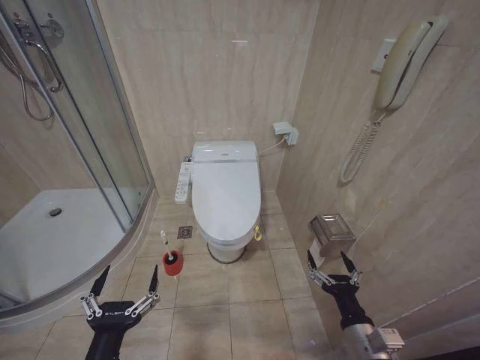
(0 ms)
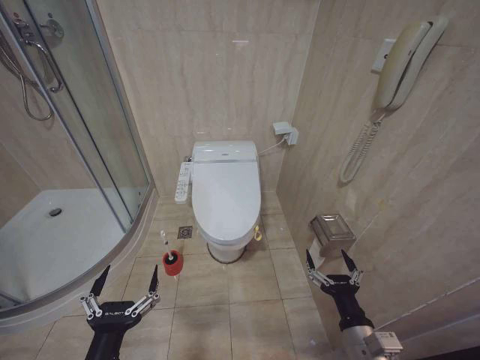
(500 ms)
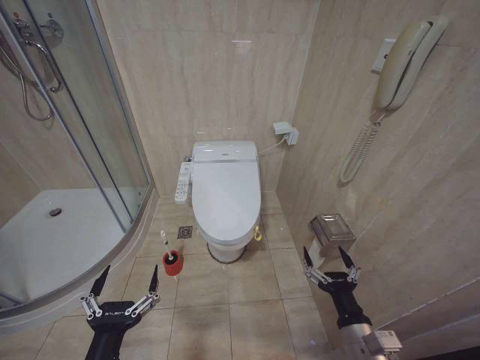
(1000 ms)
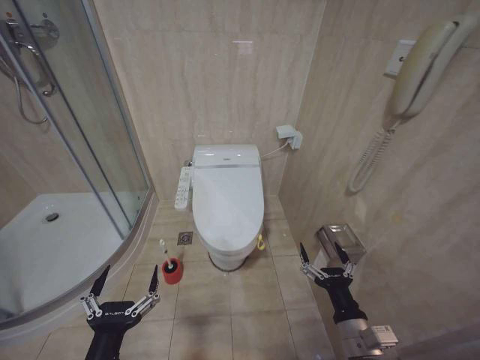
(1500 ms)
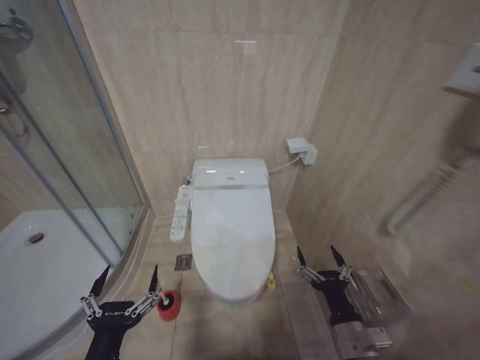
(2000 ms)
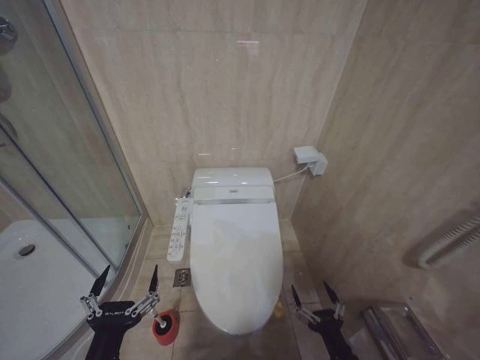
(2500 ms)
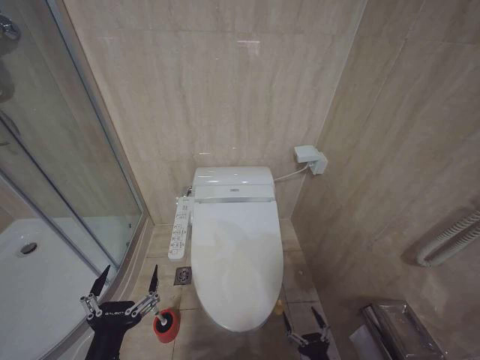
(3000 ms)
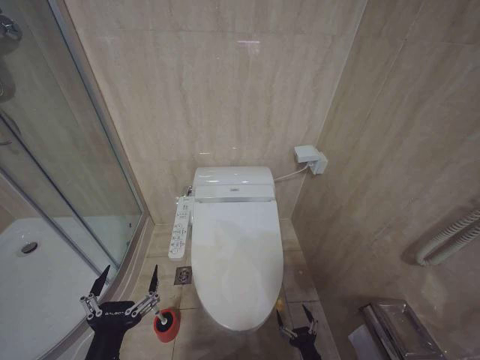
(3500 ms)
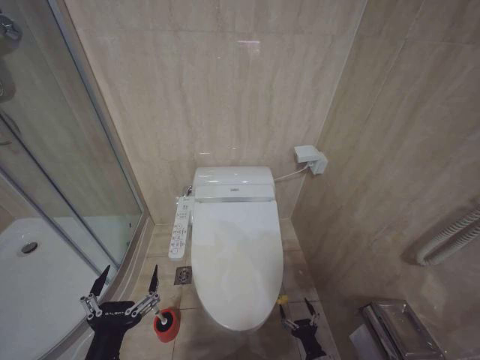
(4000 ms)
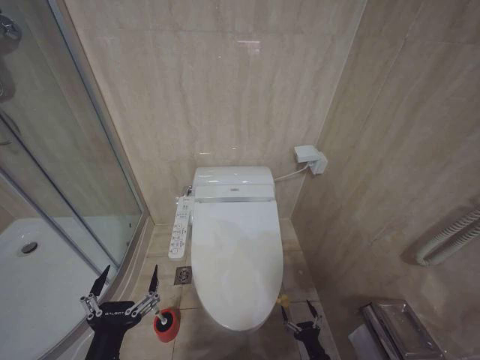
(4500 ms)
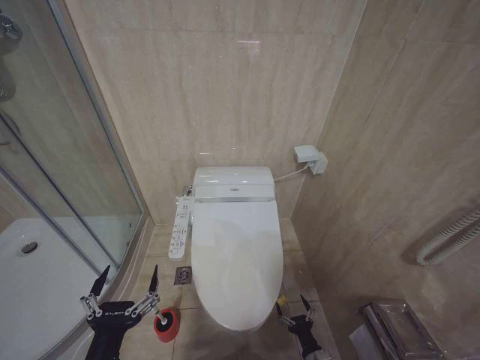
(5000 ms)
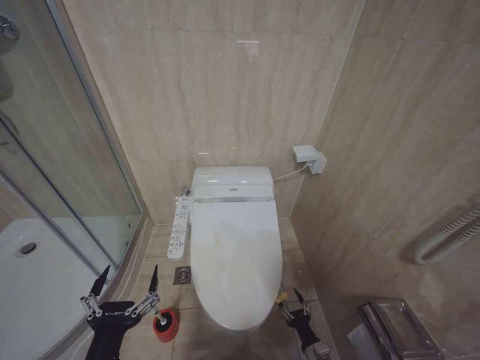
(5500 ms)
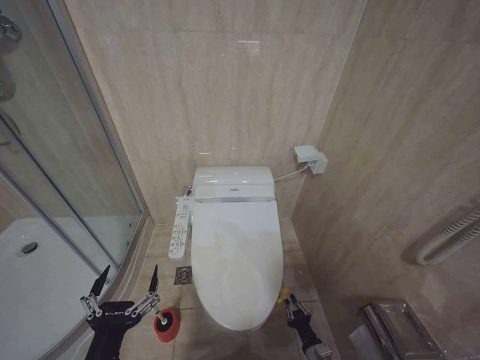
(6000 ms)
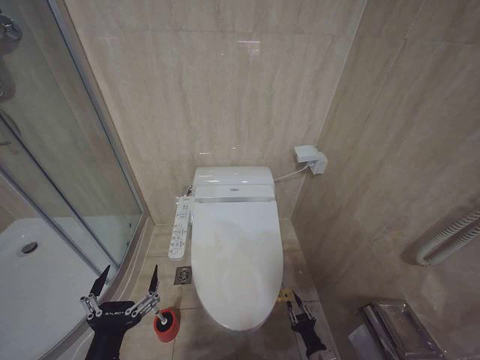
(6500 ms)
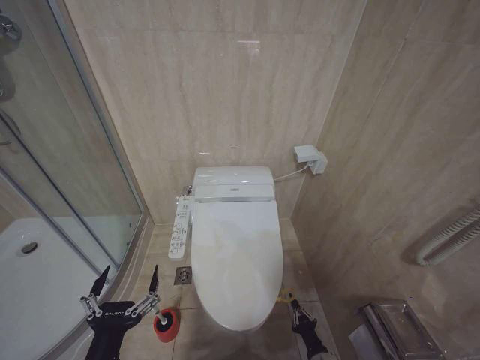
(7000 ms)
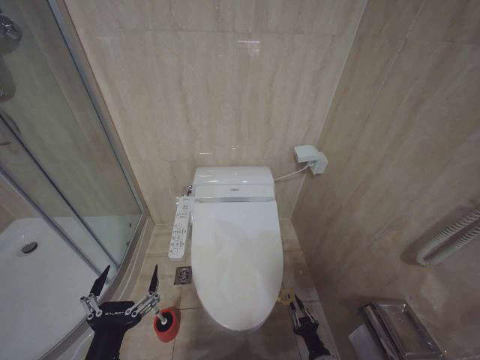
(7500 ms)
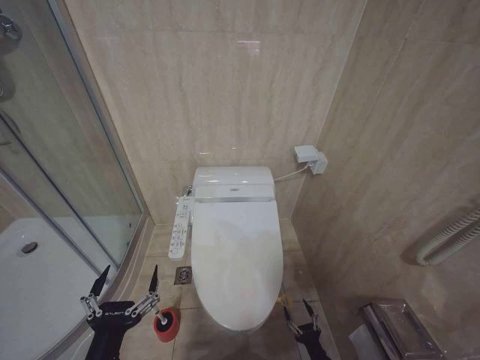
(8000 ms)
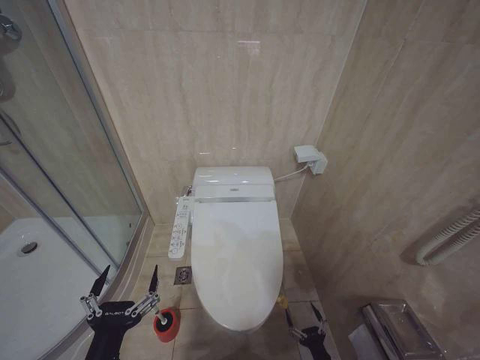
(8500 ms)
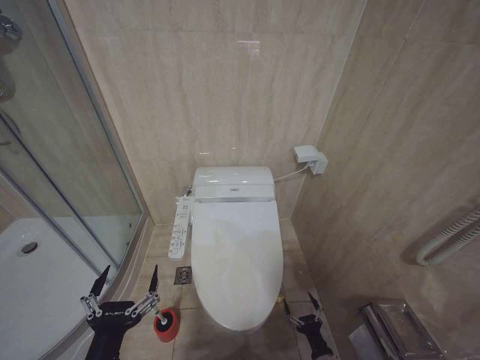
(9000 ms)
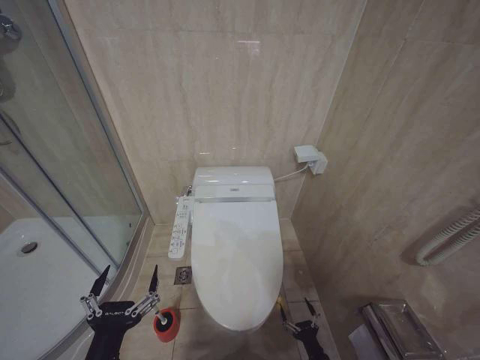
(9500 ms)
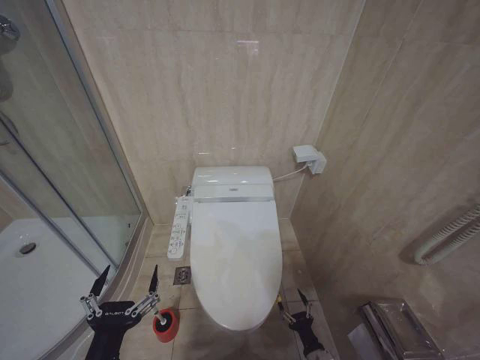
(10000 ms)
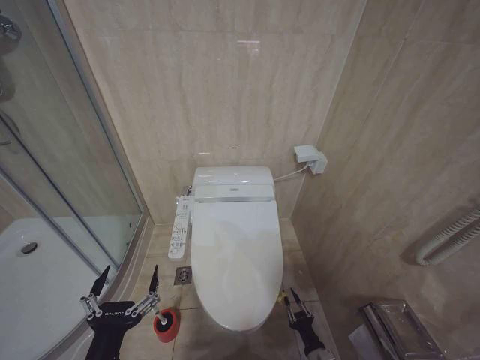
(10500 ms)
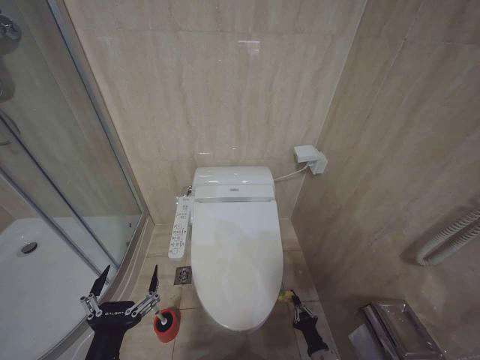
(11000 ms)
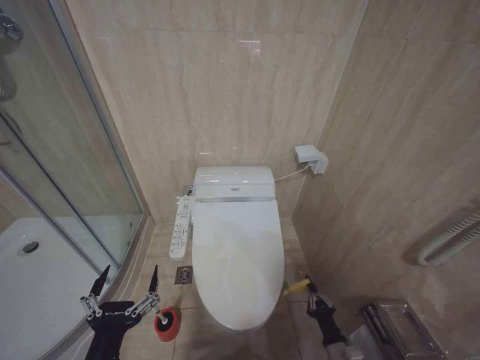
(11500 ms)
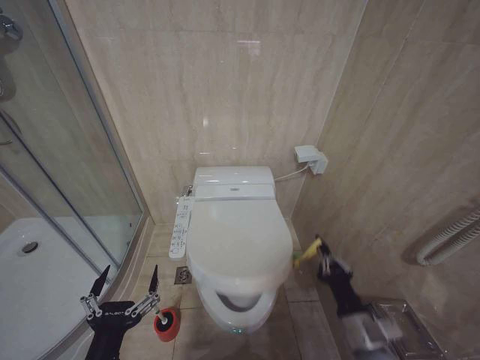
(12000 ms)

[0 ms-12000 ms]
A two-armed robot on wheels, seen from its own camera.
Task of the whole recording: Open the toilet lid, clean the toilet bowl with a toilet brush, close the toilet lid, and flush.
2000 ms to 4000 ms: The right gripper travels downward by approximately 25 cm.
10000 ms to 12000 ms: The right gripper goes some 25 cm upward, and closes.

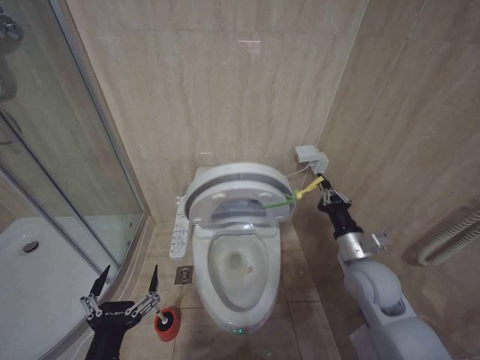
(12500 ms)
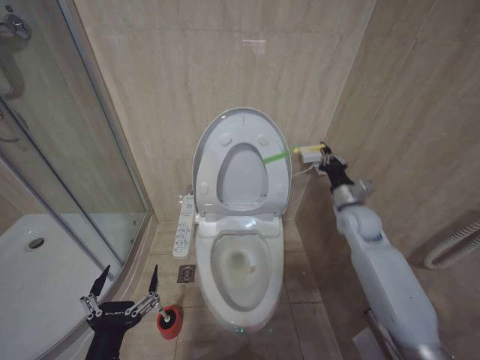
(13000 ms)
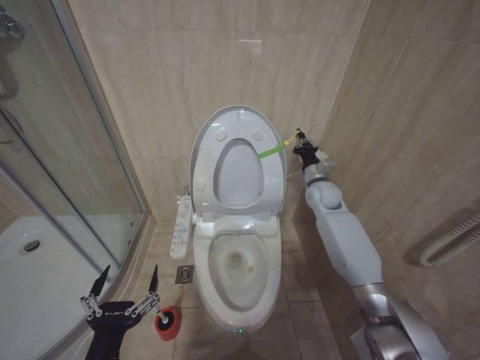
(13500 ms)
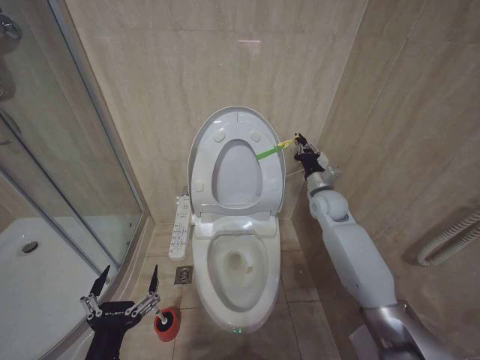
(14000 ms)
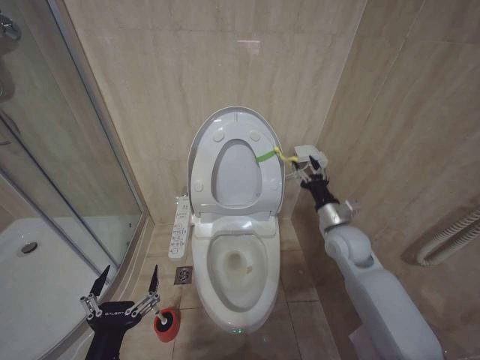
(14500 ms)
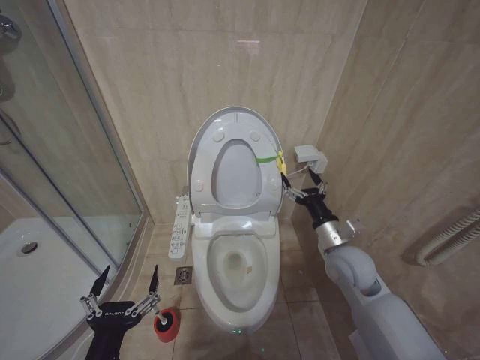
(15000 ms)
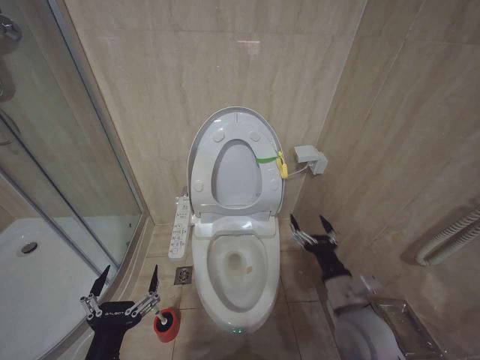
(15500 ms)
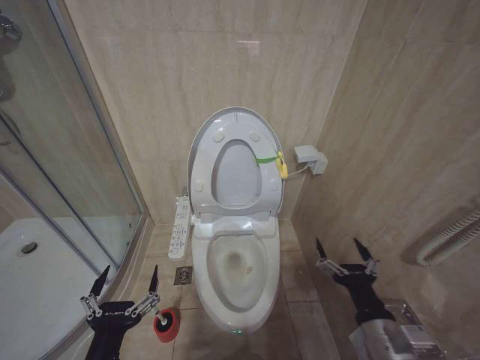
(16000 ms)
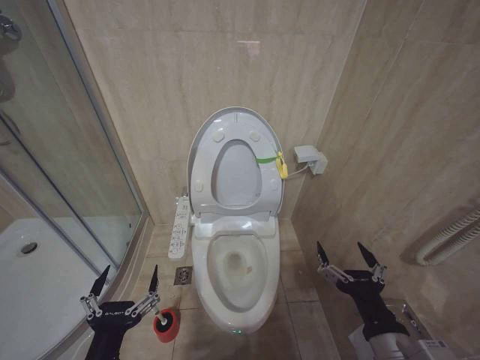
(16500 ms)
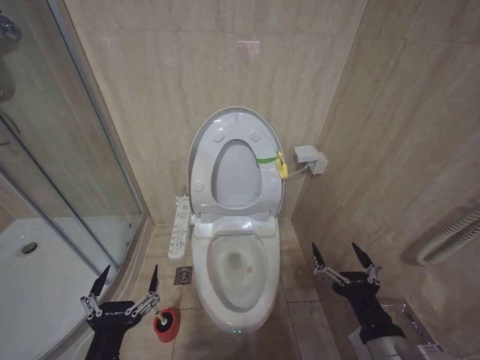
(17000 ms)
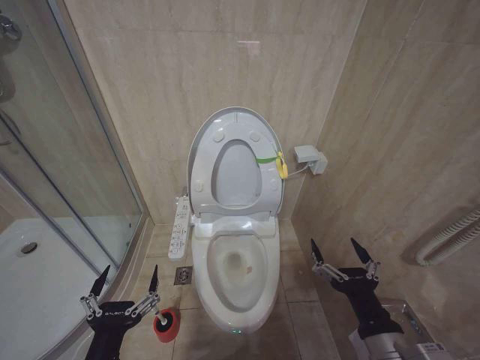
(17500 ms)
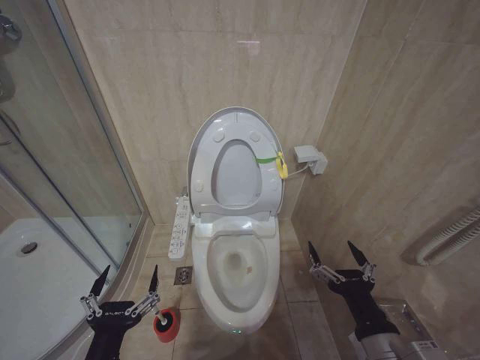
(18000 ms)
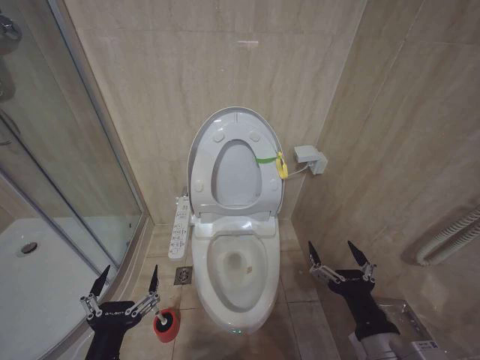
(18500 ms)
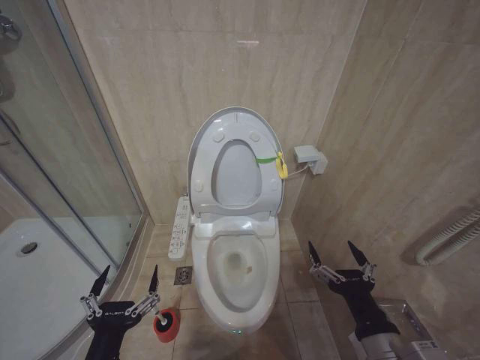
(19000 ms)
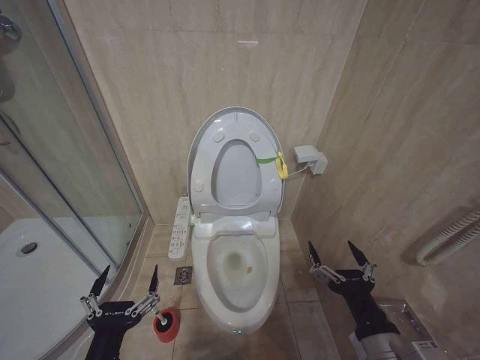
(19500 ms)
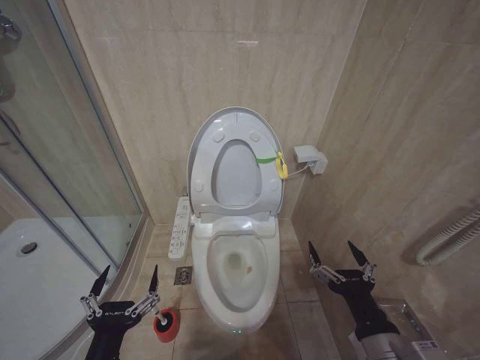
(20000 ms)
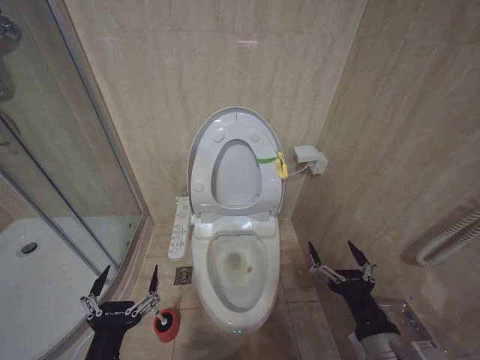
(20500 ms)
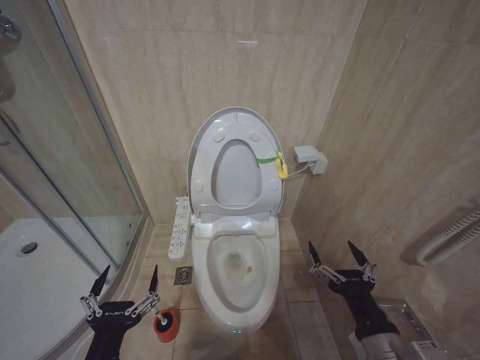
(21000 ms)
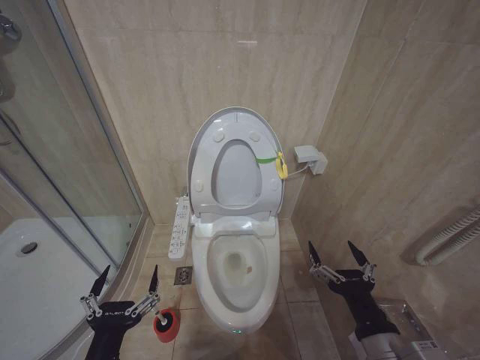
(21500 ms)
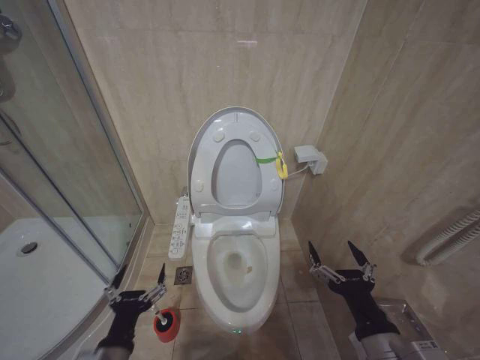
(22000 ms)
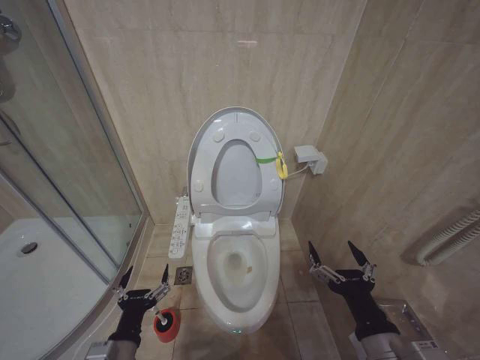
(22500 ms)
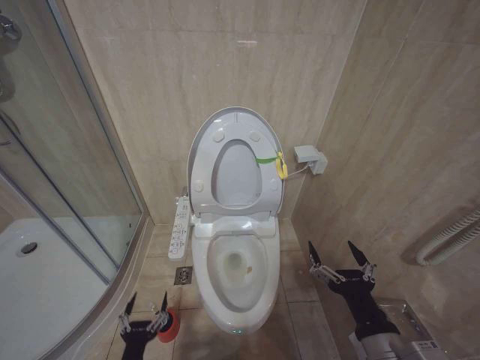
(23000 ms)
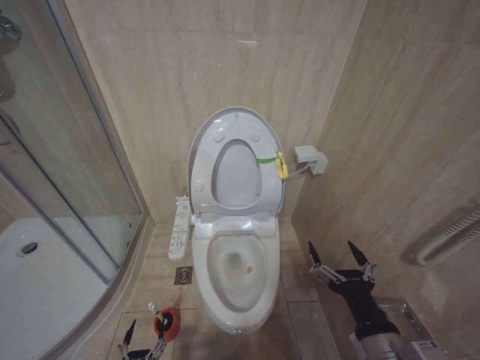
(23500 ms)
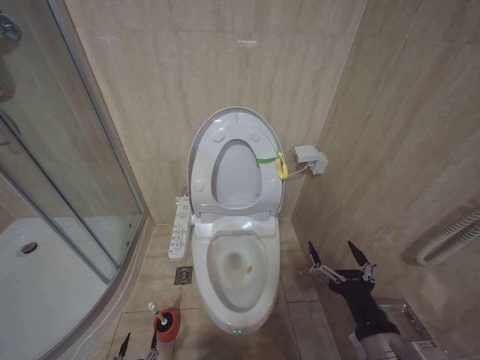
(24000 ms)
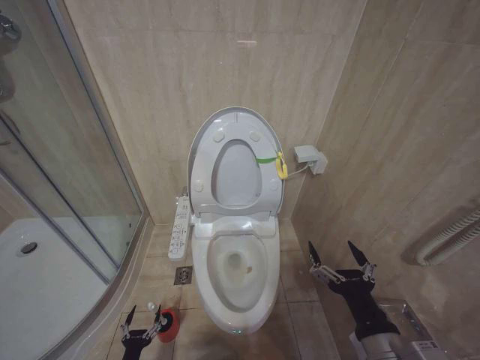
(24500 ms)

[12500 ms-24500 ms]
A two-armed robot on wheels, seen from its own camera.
Task of the whole recording: Open the toilet lid, clean the toilet bowl with a toilet brush, close the toilet lid, and flush.
12500 ms to 14500 ms: The right gripper moves forward, some 15 cm, and opens.
14500 ms to 16500 ms: The right gripper travels backward by some 30 cm, and opens.
16500 ms to 18500 ms: The grippers make only small movements.
18500 ms to 20500 ms: Both grippers stay about where they are.
20500 ms to 22500 ms: The left gripper shifts approximately 10 cm downward and forward.
22500 ms to 24500 ms: The left gripper moves downward, some 25 cm.

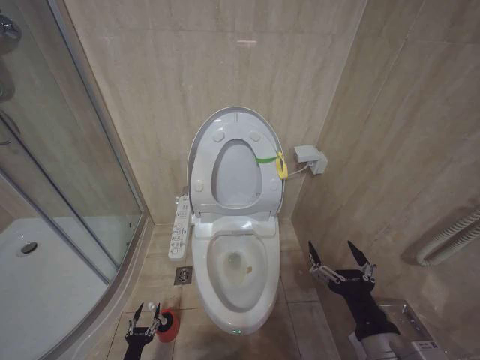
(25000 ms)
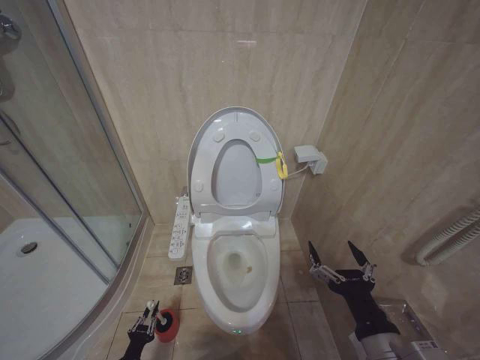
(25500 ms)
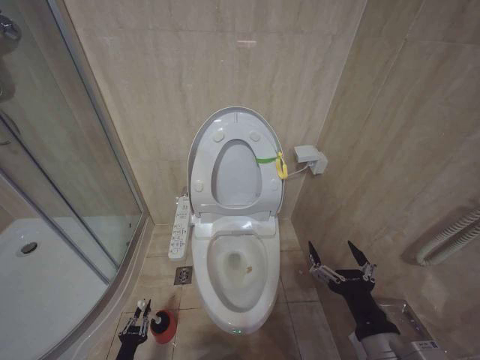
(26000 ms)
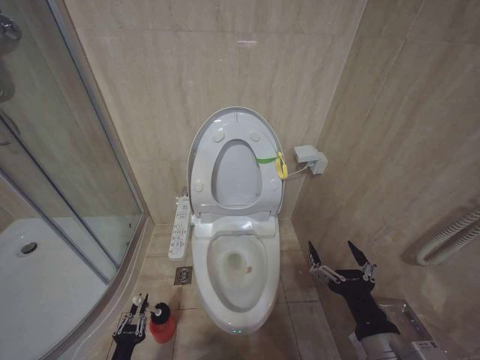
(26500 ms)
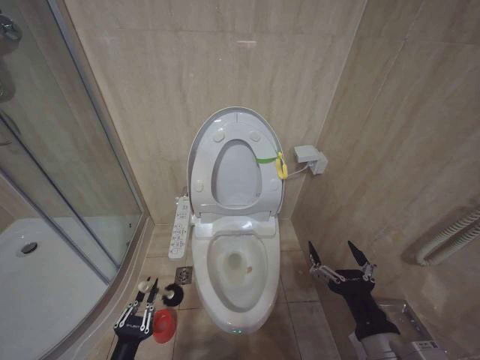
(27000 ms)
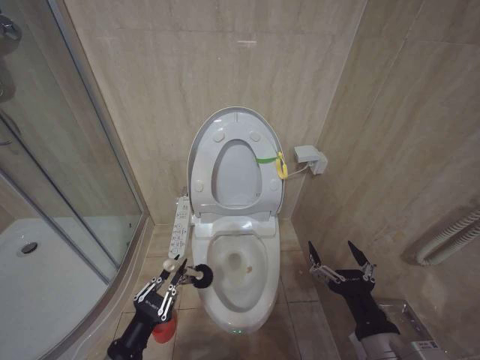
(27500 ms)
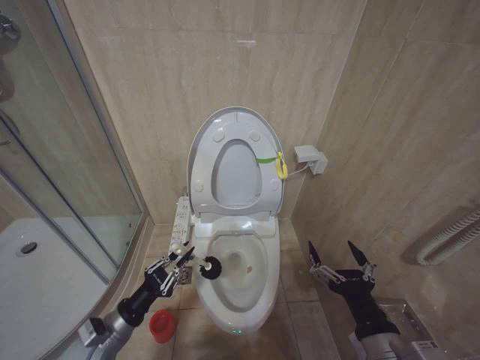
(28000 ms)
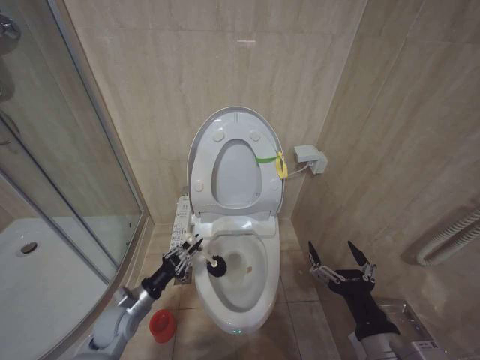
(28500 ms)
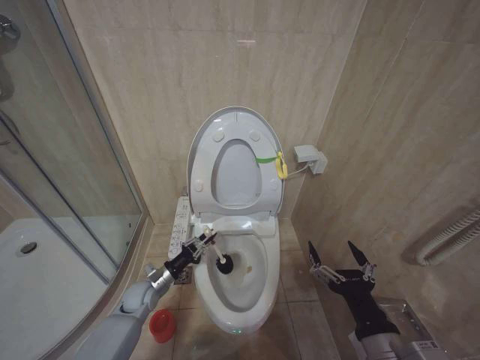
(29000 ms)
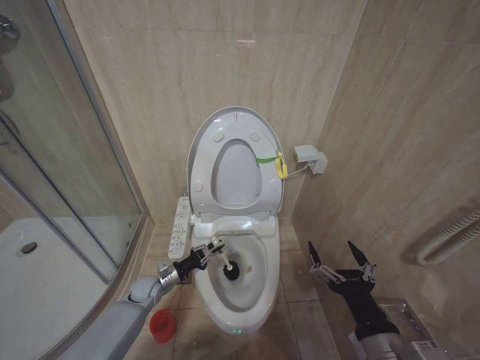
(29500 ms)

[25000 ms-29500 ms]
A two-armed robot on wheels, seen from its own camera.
Task of the whole recording: Open the toilet lid, clean the toilet bowl with a toilet brush, close the toilet lid, and flush.
25000 ms to 27000 ms: The left gripper is displaced upward by about 20 cm, and closes its fingers.
27000 ms to 29500 ms: The left gripper is displaced forward by roughly 30 cm.
